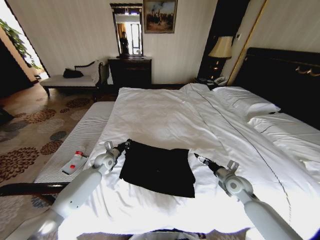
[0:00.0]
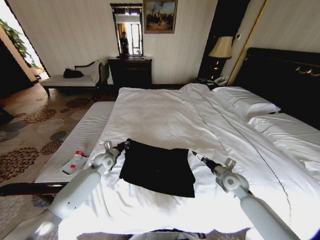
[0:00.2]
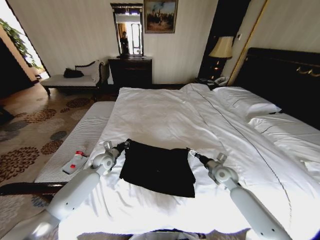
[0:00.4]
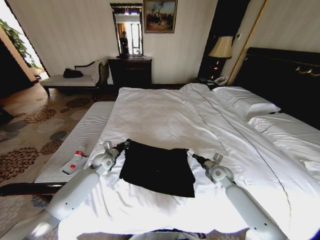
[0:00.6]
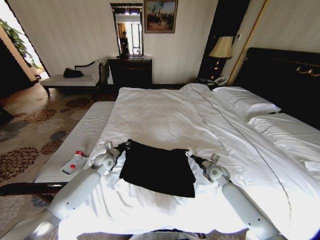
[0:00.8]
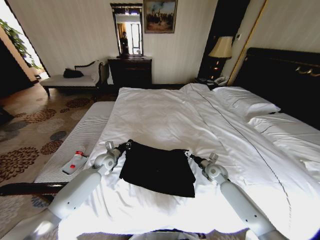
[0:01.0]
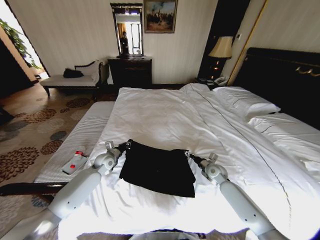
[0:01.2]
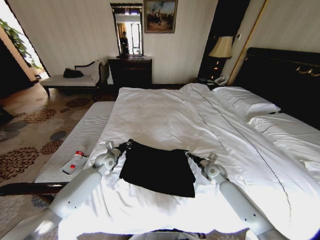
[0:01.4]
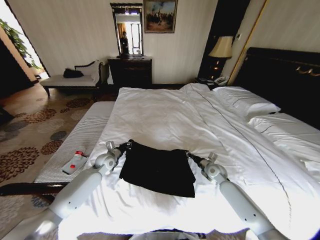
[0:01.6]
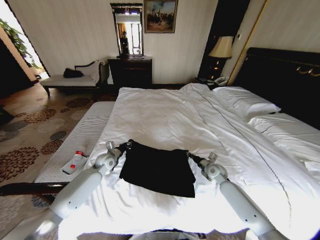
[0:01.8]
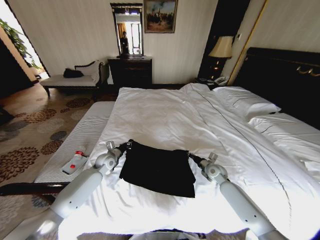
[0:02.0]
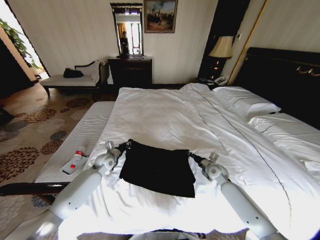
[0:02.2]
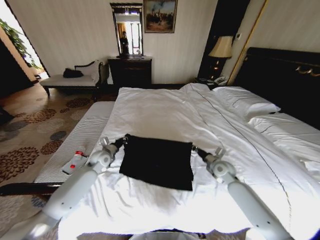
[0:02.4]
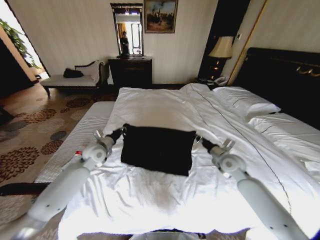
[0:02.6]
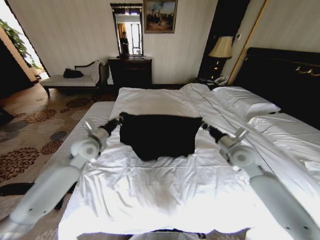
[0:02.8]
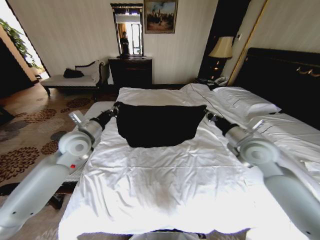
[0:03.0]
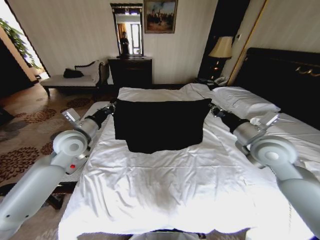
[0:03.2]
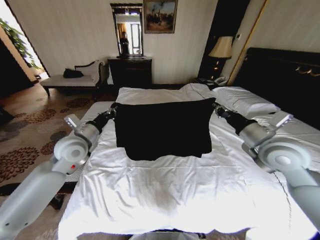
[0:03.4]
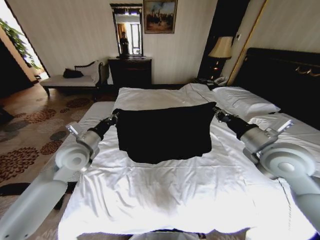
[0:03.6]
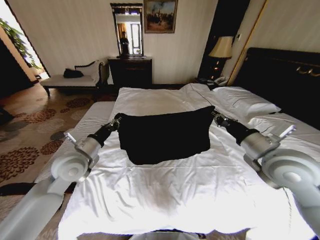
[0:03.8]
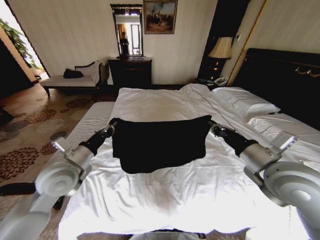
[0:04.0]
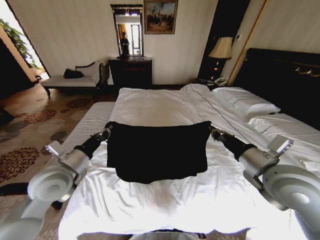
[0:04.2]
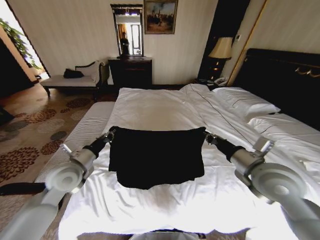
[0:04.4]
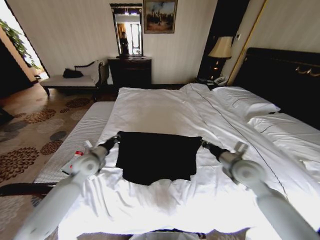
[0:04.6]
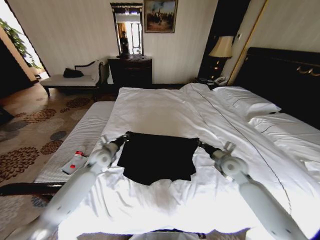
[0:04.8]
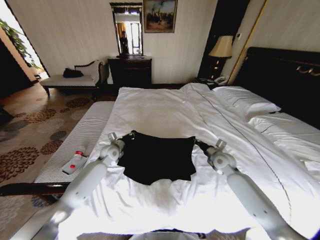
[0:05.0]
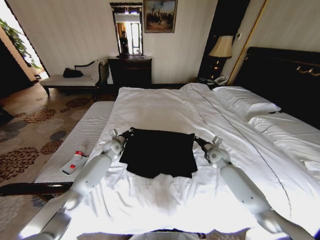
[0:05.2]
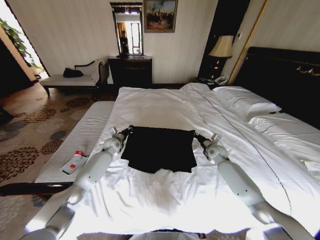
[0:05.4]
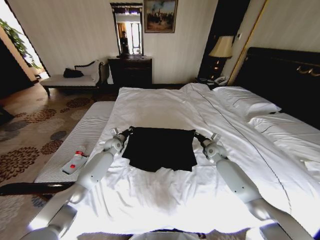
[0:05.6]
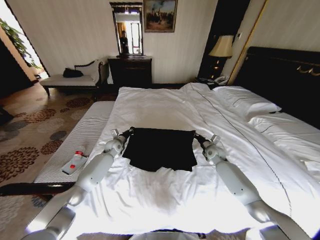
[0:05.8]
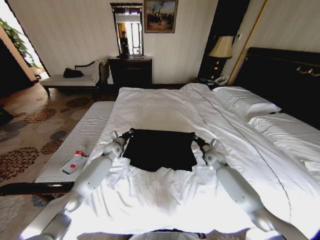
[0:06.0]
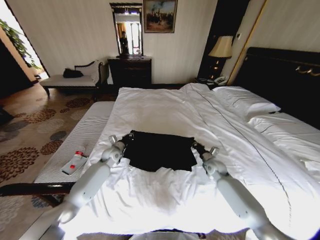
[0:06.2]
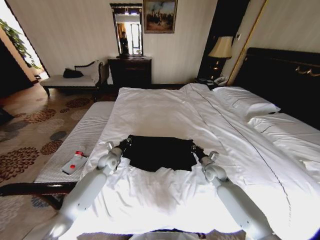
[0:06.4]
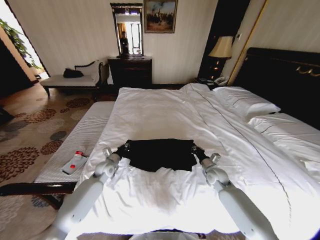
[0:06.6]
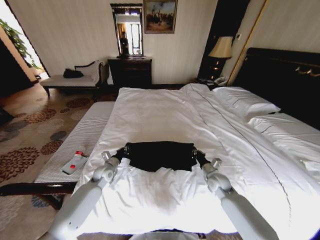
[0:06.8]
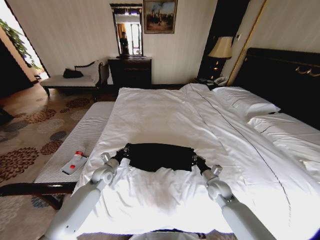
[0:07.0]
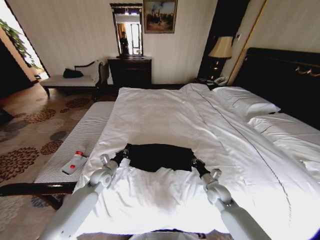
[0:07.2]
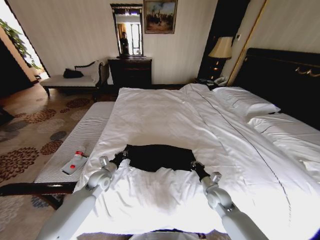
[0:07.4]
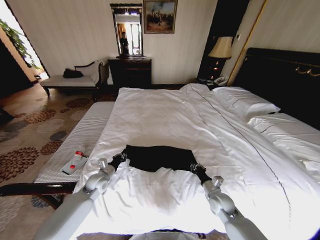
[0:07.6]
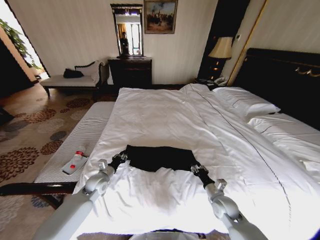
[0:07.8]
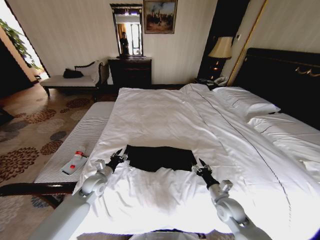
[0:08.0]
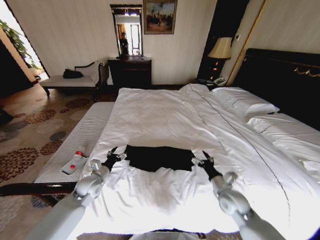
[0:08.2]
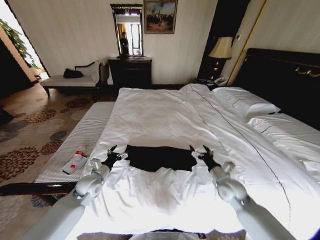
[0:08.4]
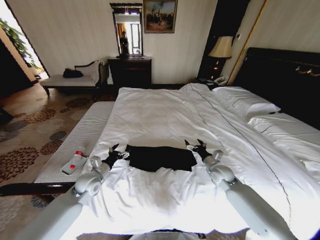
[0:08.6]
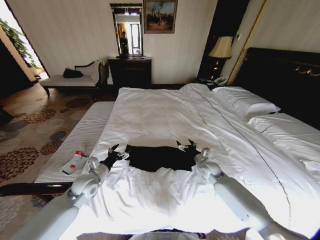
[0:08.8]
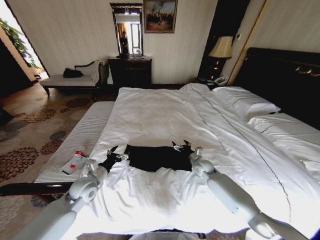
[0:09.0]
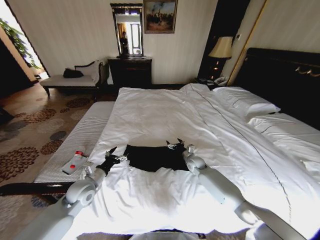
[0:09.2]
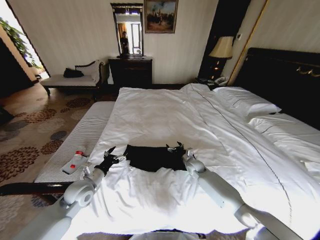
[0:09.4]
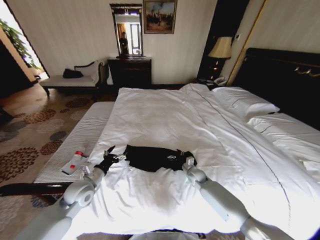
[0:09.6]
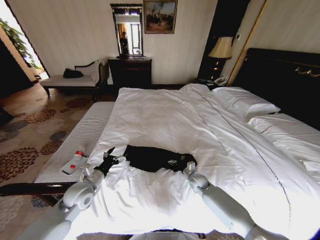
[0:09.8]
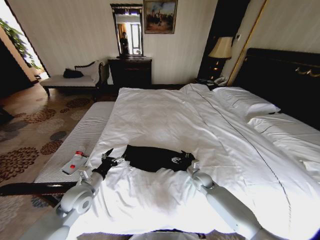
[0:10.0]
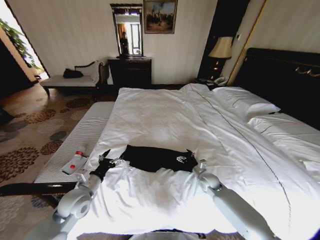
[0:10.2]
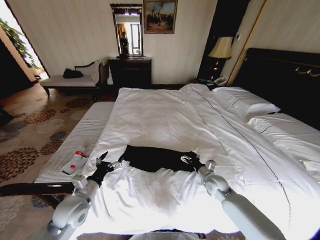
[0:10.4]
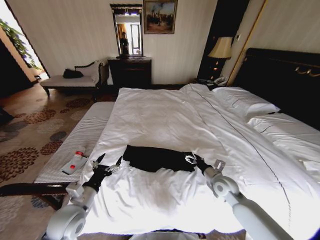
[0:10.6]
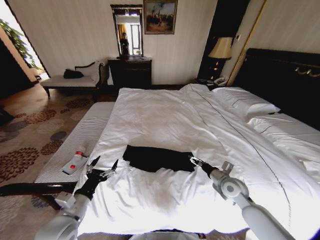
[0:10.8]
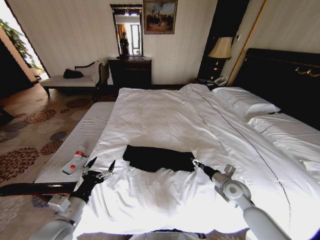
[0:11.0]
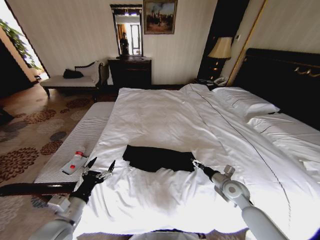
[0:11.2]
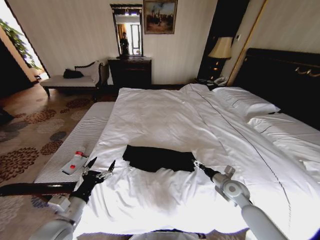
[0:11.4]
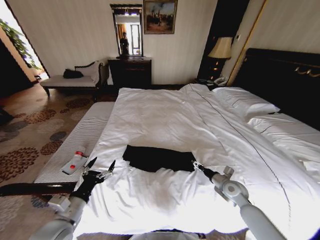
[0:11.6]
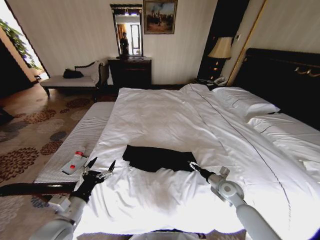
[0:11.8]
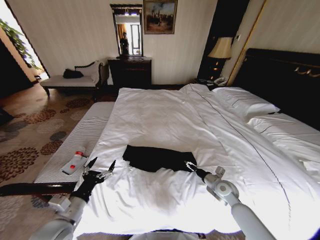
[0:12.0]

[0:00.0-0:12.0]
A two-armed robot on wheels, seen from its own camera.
Task of the whole recording: Fold the clothes on the bed.
0:00.0 to 0:01.6: The right gripper is displaced forward by some 10 cm, and closes its fingers.
0:01.6 to 0:03.0: The grippers both shift upward by approximately 25 cm. The right gripper closes its fingers.
0:03.0 to 0:04.4: The right gripper goes roughly 10 cm backward, while the left gripper is displaced backward and downward by about 10 cm.
0:04.4 to 0:06.0: The right gripper shifts some 30 cm downward and forward. Meanwhile the left gripper goes some 25 cm forward and downward.
0:06.0 to 0:07.6: The two grippers go roughly 20 cm backward.
0:07.6 to 0:09.0: The right gripper goes roughly 15 cm forward, and opens up, while the left gripper moves upward, approximately 5 cm, and opens.
0:09.0 to 0:10.4: The two grippers go roughly 10 cm backward.
0:10.4 to 0:12.0: The left gripper moves backward, approximately 5 cm.

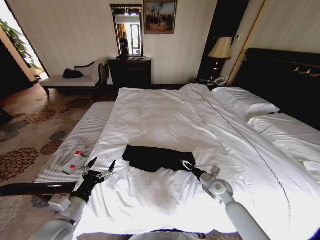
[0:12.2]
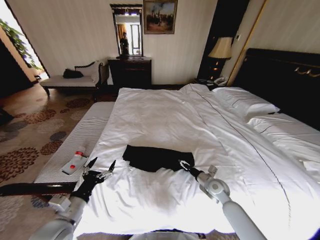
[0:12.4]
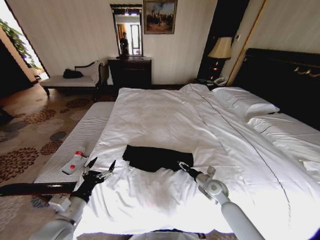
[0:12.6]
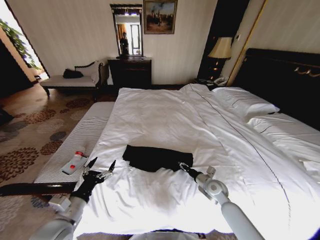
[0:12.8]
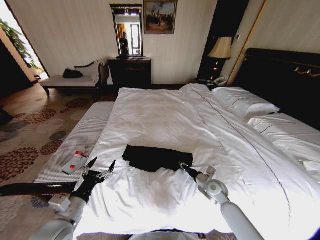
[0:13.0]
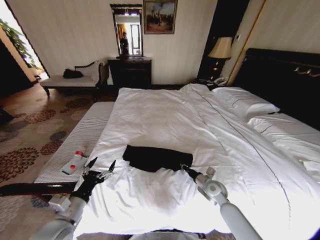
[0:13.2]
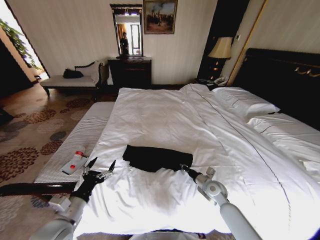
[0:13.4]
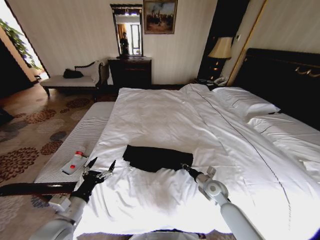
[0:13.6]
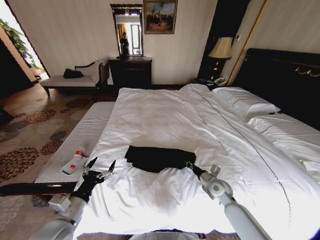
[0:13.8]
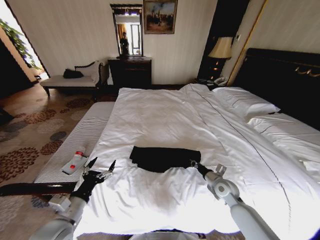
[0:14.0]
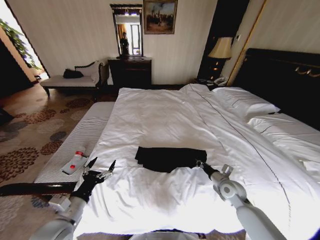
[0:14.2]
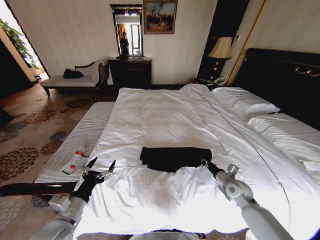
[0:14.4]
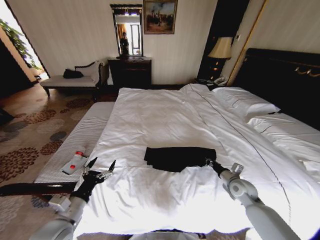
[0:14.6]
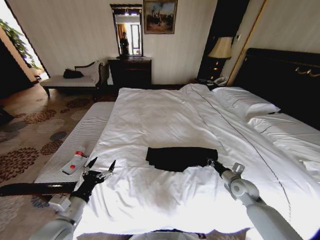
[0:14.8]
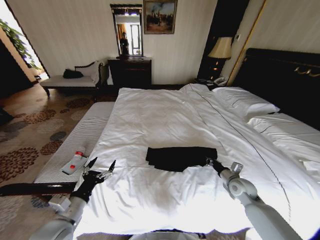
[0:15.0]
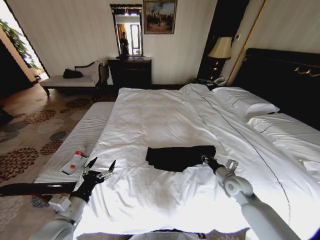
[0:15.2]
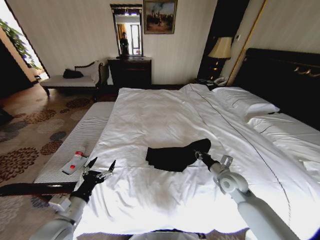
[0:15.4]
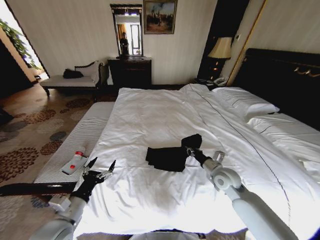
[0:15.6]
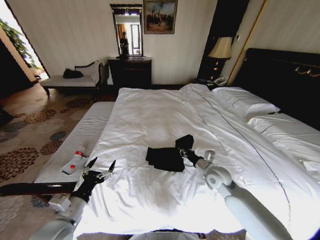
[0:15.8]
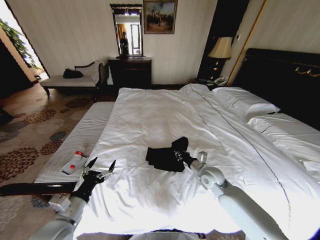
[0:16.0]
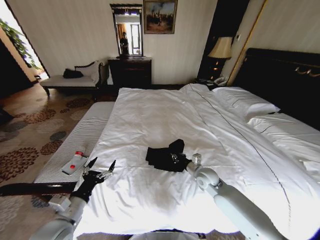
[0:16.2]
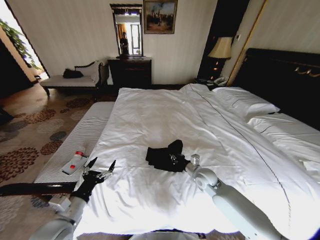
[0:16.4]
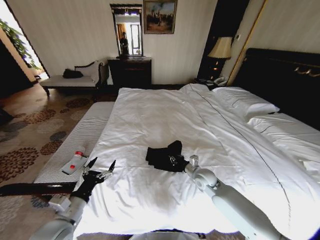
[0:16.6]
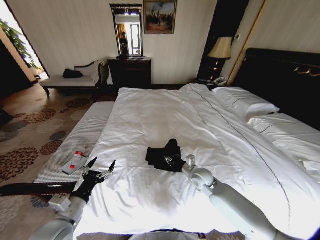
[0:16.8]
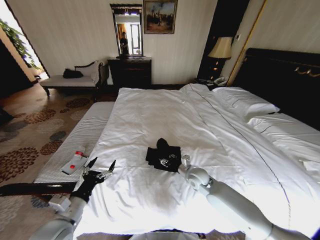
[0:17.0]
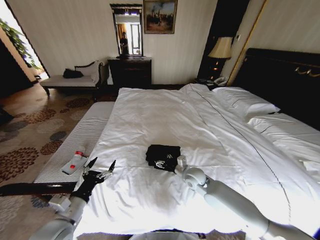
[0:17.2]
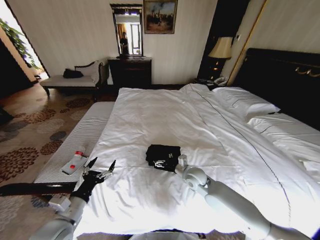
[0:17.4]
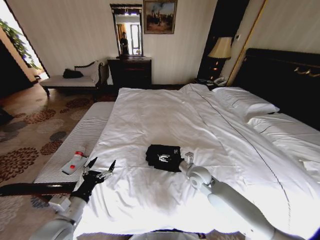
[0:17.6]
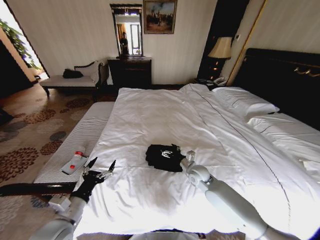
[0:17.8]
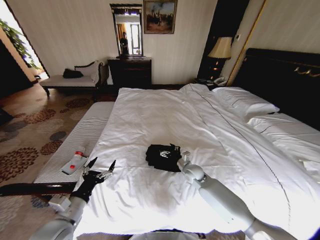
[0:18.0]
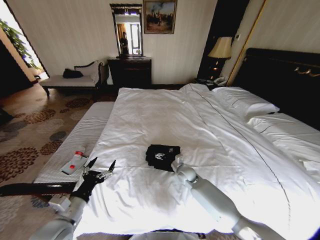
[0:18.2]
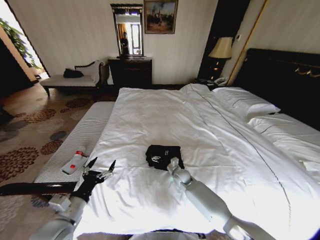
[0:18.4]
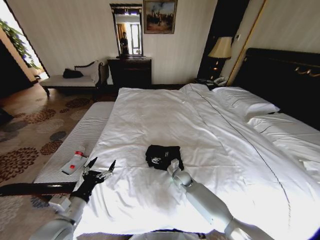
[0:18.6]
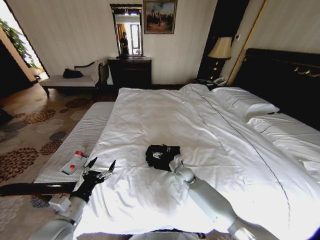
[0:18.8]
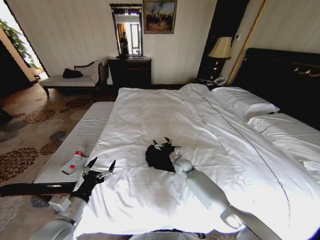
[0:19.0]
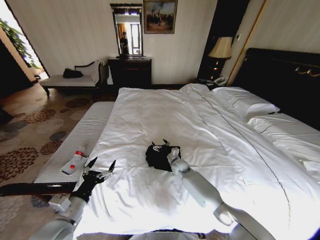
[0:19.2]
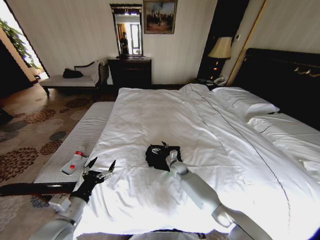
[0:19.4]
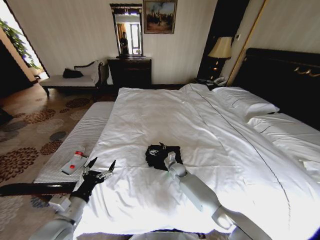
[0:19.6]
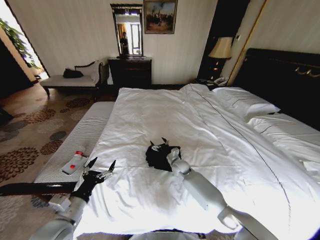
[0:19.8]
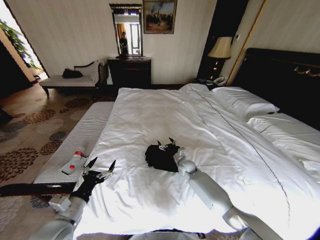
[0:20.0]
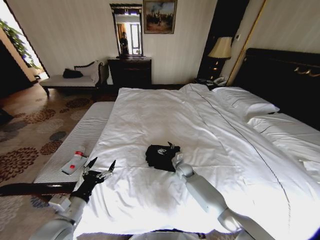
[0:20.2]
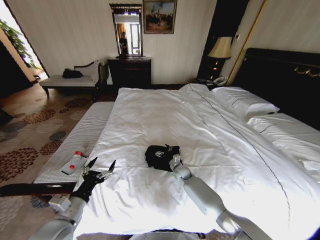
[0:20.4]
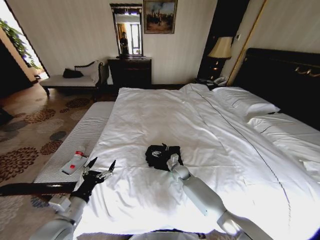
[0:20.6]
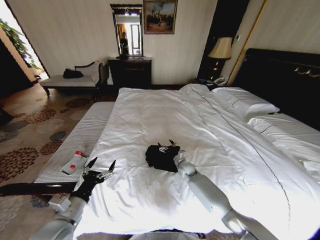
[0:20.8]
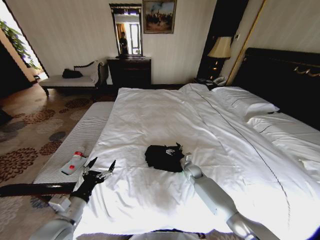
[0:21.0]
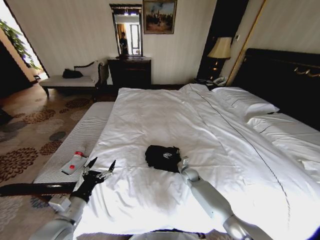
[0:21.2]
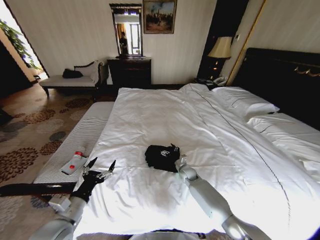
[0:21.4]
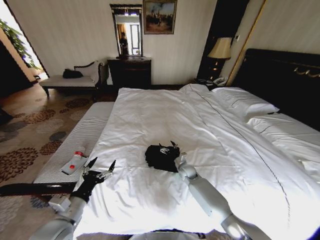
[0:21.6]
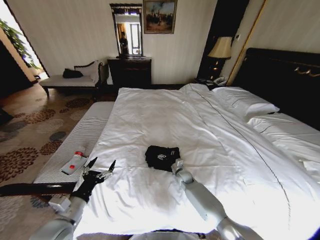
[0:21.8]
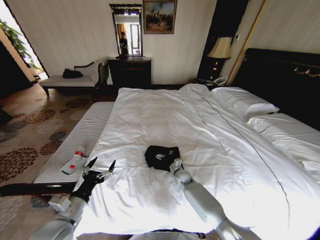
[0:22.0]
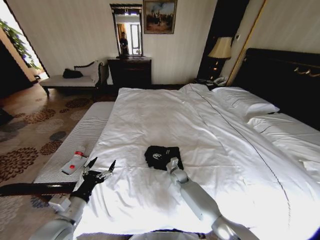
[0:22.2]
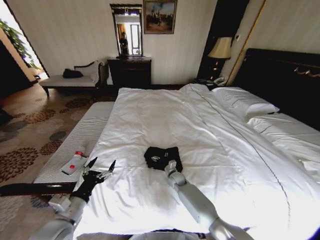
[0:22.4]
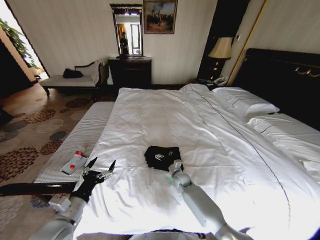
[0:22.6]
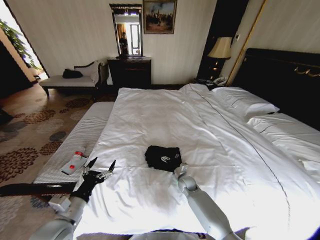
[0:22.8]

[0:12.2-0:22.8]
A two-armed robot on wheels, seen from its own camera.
Task of the whole recording: Fold the clothes on the bed.
0:12.2 to 0:13.8: The right gripper closes.
0:13.8 to 0:15.2: The right gripper is displaced to the right by roughly 5 cm.
0:15.2 to 0:16.8: The right gripper moves to the left, roughly 15 cm.
0:16.8 to 0:18.2: The right gripper heads downward, covering some 5 cm, and opens.
0:18.2 to 0:19.8: The right gripper moves about 5 cm.
0:19.8 to 0:21.2: The right gripper heads to the right and downward, covering approximately 10 cm.
